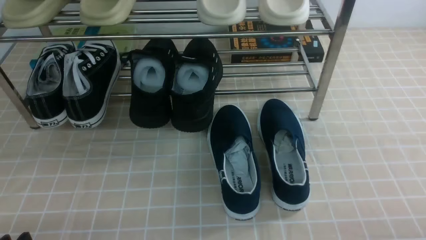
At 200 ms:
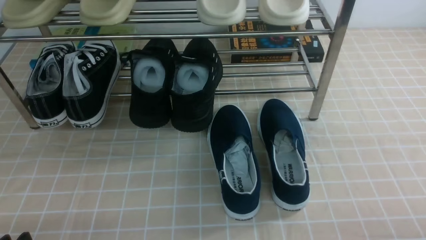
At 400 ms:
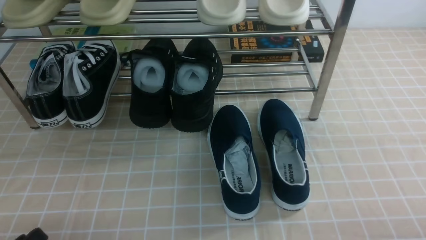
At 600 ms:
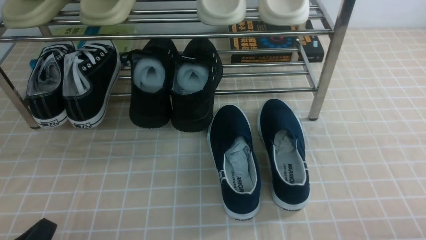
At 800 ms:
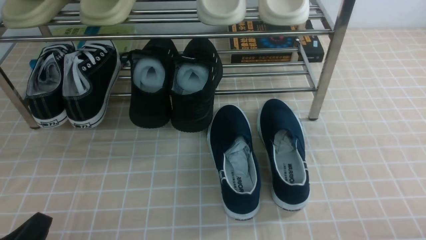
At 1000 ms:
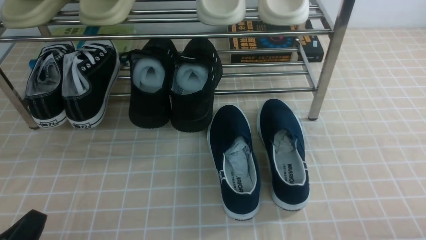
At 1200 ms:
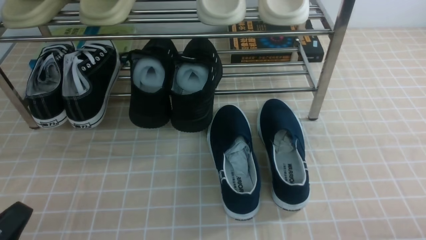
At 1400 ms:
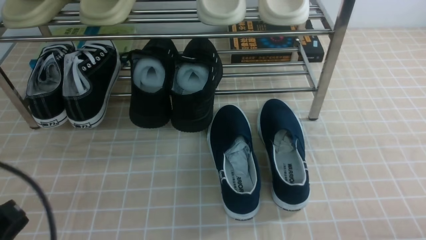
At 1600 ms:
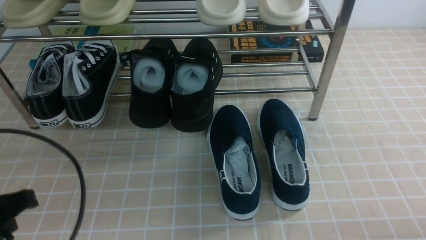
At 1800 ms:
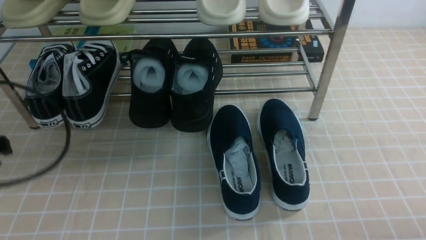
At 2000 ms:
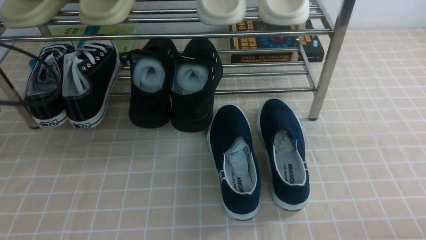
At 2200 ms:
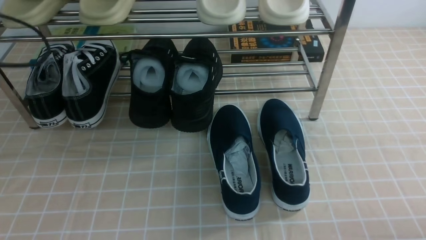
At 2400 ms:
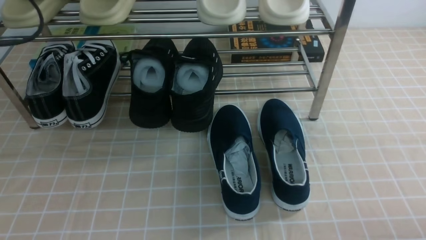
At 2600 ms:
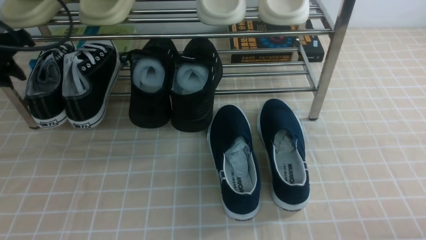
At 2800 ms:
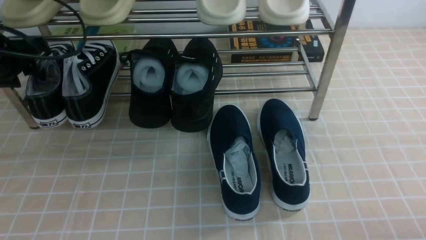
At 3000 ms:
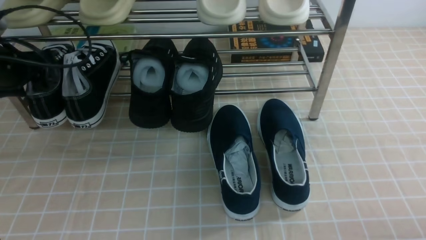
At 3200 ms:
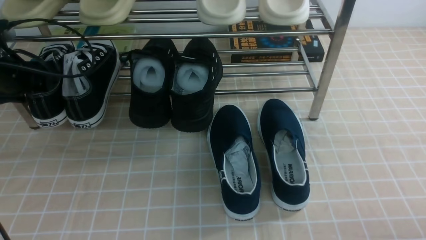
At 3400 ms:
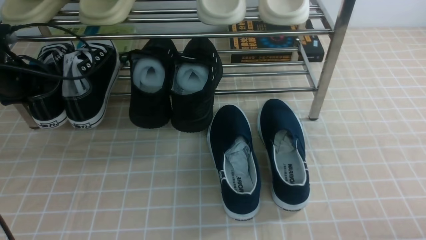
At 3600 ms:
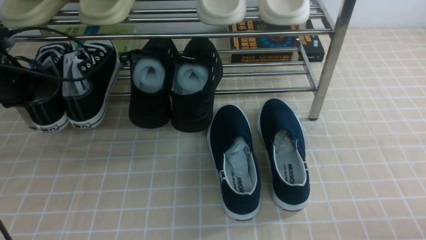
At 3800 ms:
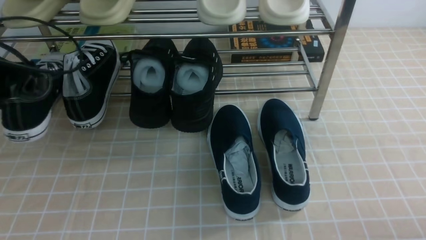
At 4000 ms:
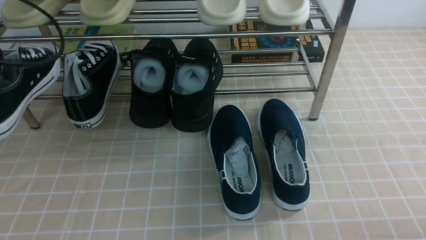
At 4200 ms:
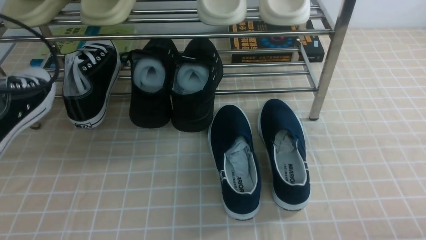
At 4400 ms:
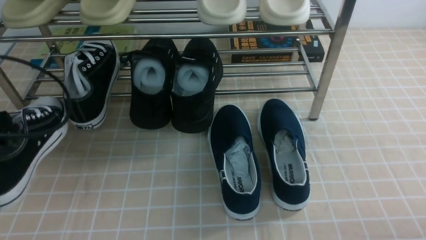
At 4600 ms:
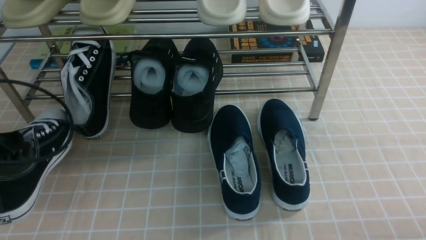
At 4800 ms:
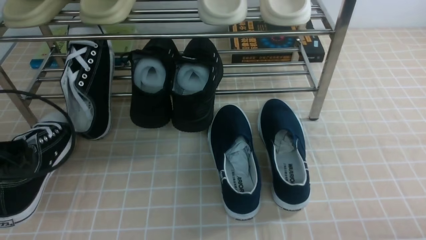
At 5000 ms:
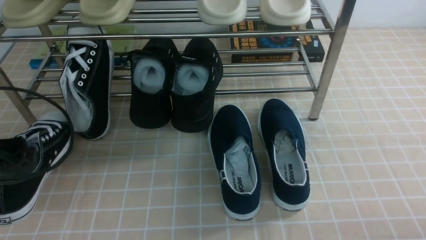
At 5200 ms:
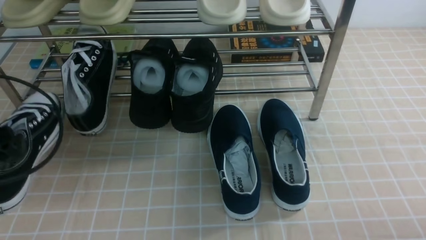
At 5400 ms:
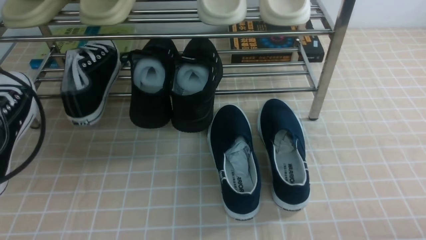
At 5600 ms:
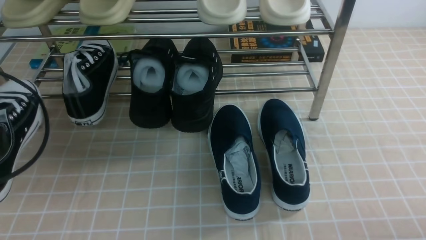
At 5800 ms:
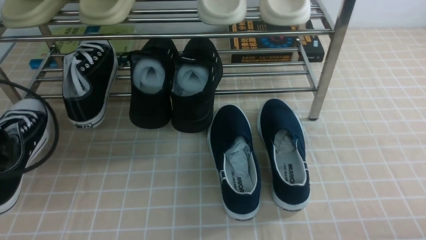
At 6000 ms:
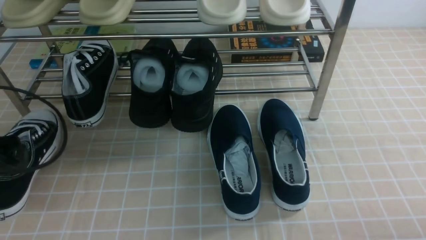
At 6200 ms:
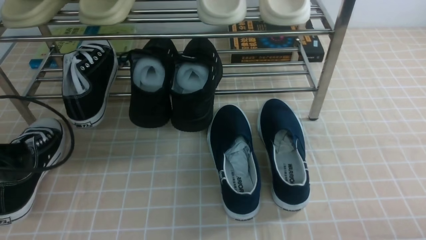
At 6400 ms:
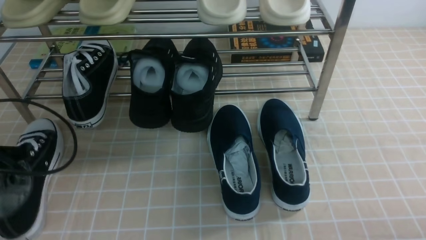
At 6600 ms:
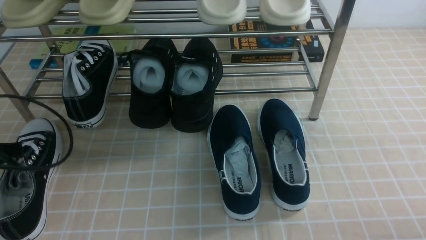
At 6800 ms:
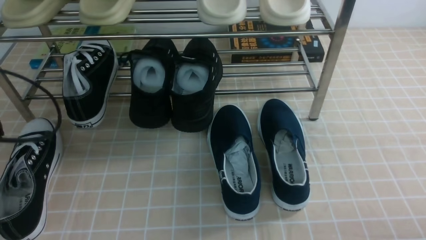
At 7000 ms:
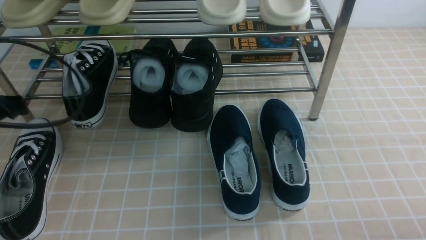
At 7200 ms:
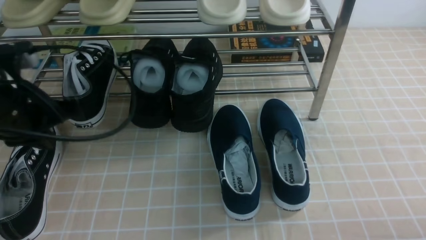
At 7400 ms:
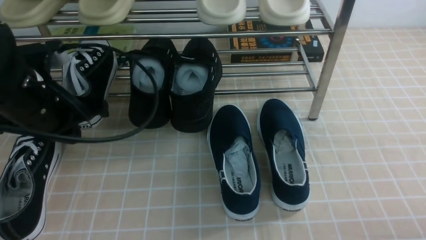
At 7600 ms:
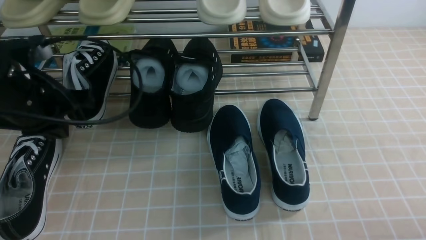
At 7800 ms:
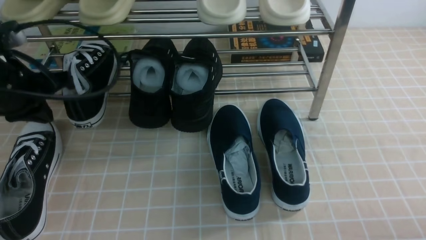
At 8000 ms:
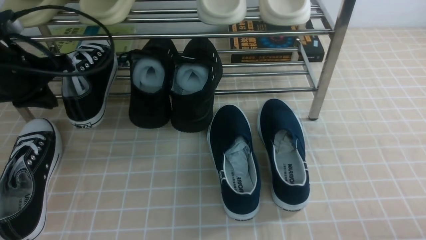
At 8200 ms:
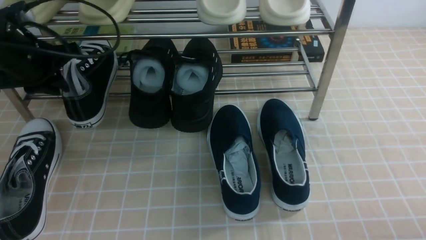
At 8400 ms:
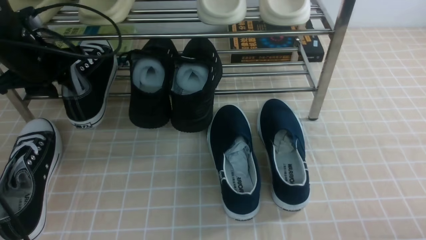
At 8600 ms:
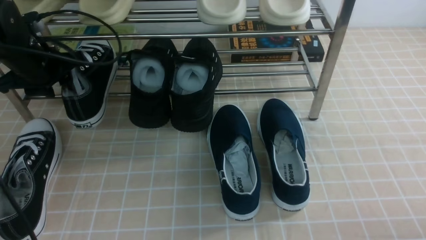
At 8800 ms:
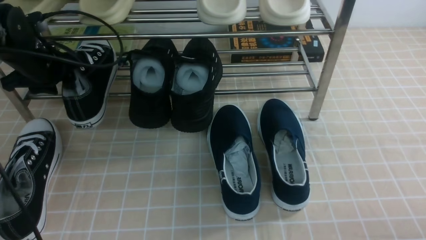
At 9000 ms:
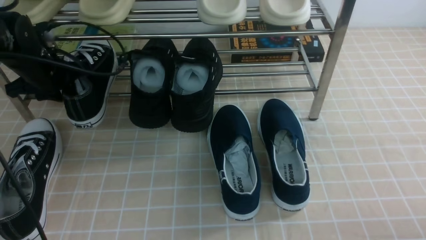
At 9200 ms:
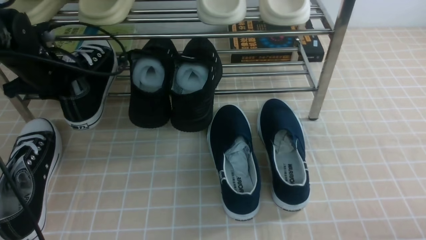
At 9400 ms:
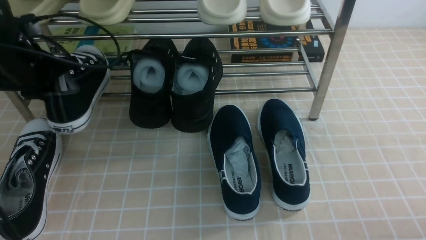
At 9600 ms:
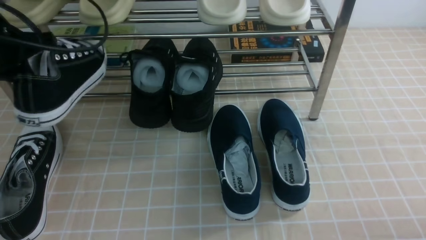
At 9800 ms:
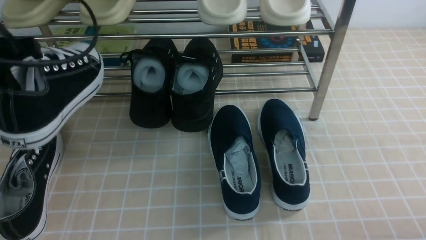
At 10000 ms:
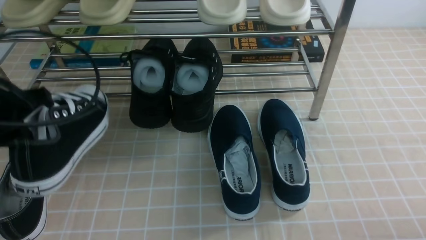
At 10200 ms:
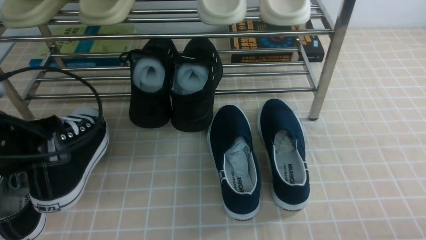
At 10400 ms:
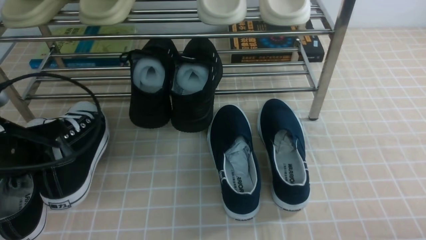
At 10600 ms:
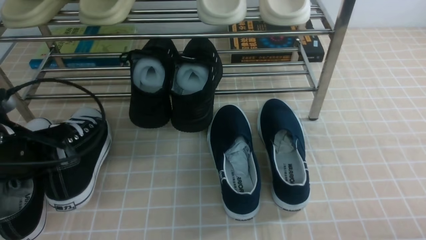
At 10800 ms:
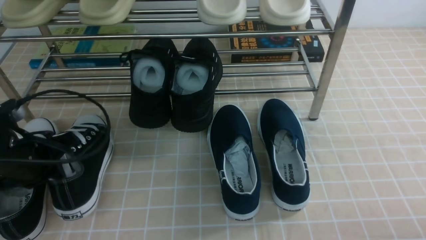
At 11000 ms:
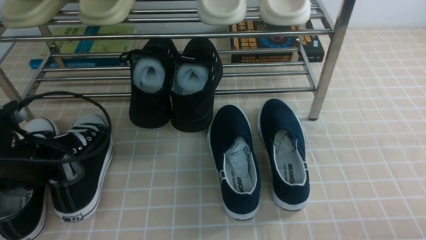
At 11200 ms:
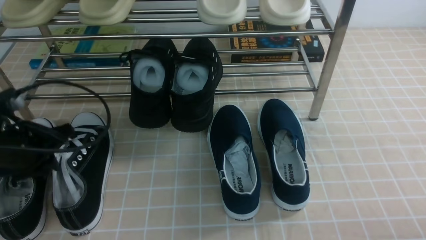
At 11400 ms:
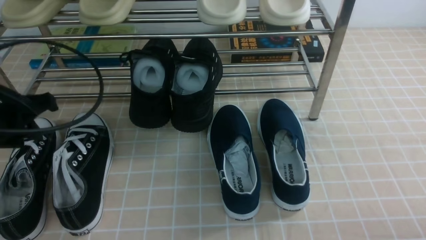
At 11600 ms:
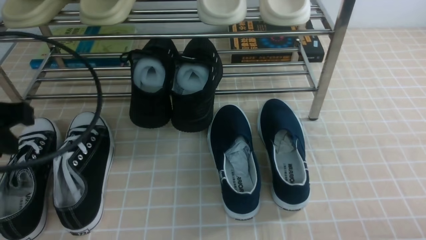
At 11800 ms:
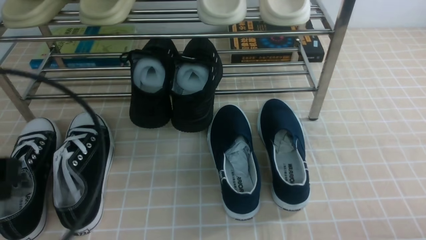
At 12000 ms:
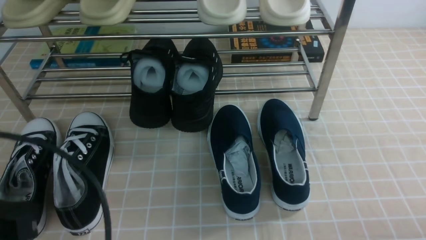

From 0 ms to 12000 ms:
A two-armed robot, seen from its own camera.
Step, from 0 ms to 3200 ms: use the left arm to clamp a shoe on the left side of the shoe rack.
Step, from 3600 ms to 6400 ms: Use your left arm to remove the clamped shoe from the shoe rack and put it down.
Step, from 6800 ms to 9000 ms: use the left arm to clamp a shoe on the left side of the shoe rack.
Step, from 9400 ms to 11200 ms: Use your left arm to remove the clamped shoe from the shoe rack and put it down.
From 0 ms to 1600 ms: The left gripper travels upward and forward by roughly 15 cm, and closes.
From 1600 ms to 3000 ms: The left gripper moves forward, about 25 cm, and opens.
From 3000 ms to 4400 ms: The left gripper is displaced backward by approximately 15 cm, and closes up.
From 4400 ms to 6000 ms: The left gripper heads downward, covering roughly 5 cm.
From 6000 ms to 7600 ms: The left gripper moves to the right and upward, roughly 10 cm, and opens, then closes once more.
From 7600 ms to 9000 ms: The left gripper shifts some 15 cm forward and downward, and opens its fingers.
From 9000 ms to 10400 ms: The left gripper moves backward, some 15 cm, and closes its fingers.
From 10400 ms to 12000 ms: The left gripper travels backward by roughly 15 cm, and opens, then closes again.

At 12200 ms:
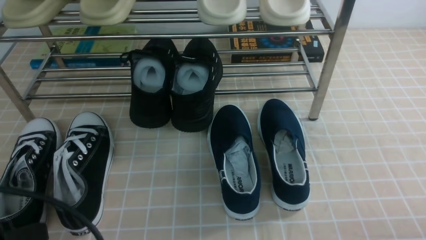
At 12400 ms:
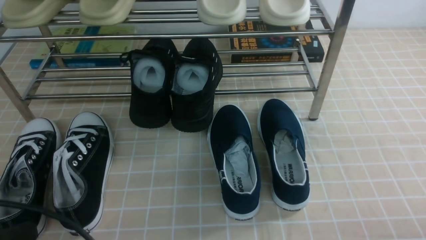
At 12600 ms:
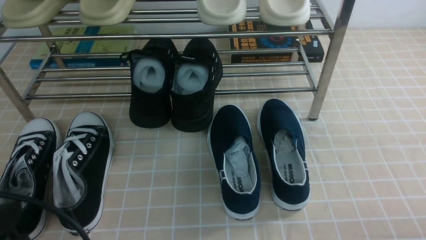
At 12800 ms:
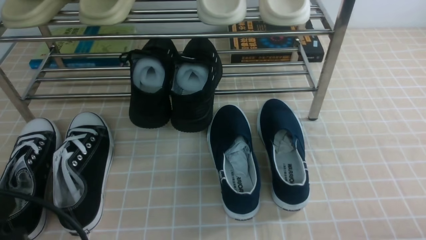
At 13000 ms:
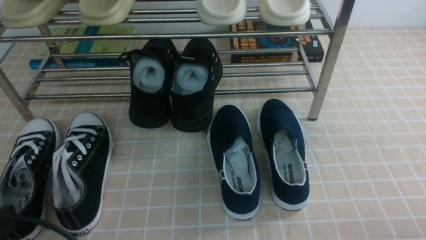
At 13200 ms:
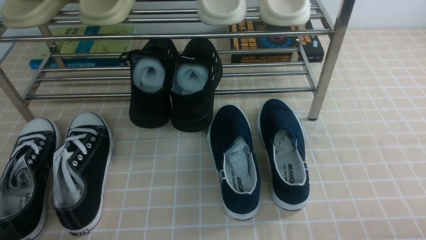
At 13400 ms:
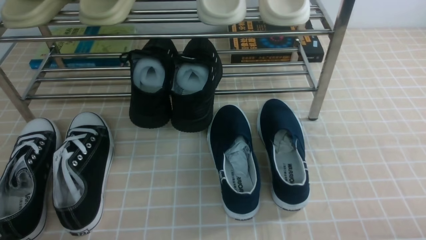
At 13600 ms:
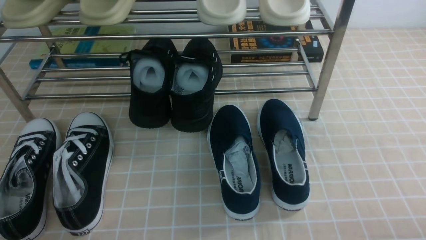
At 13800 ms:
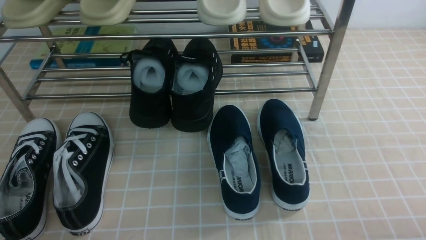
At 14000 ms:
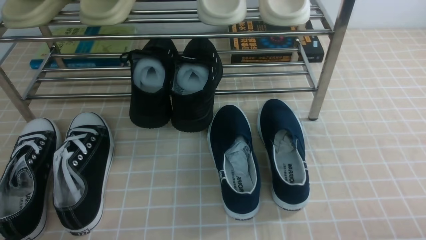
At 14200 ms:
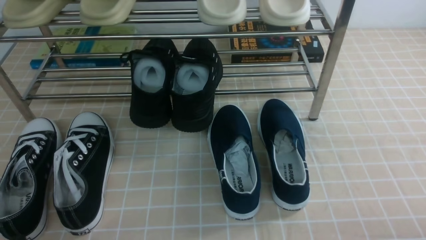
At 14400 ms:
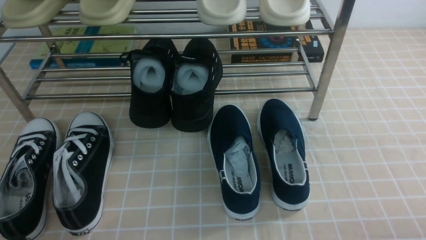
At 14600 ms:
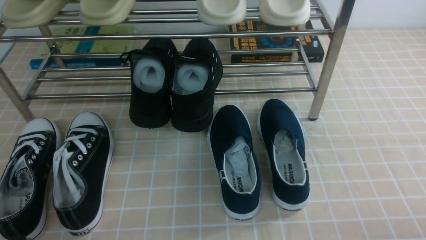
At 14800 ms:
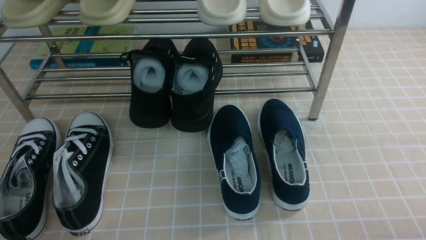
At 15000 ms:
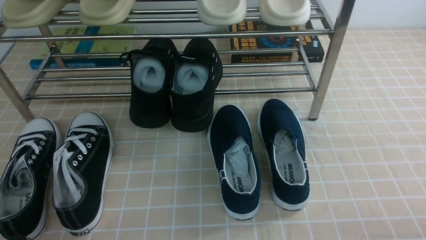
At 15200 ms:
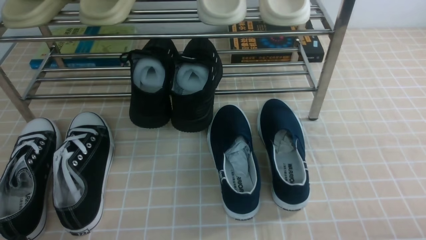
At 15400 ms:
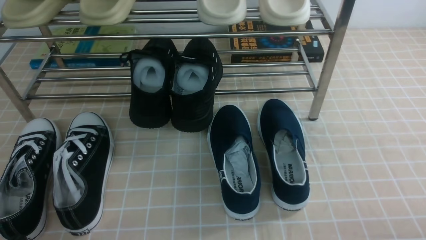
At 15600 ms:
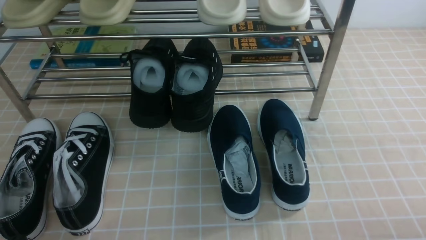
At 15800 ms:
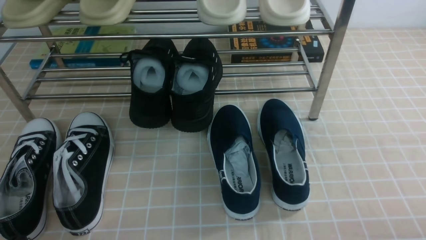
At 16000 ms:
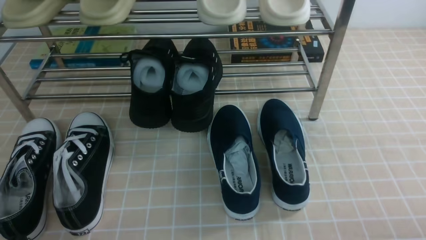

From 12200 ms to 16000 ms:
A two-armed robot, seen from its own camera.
From 12200 ms to 13400 ms: The left gripper heads downward, covering some 10 cm.
From 13400 ms to 16000 ms: The two grippers keep their place.
